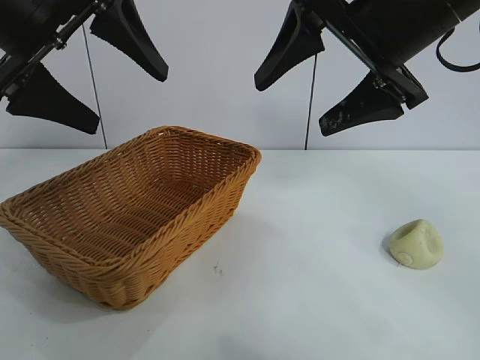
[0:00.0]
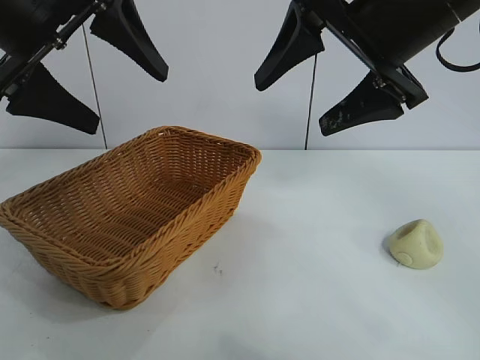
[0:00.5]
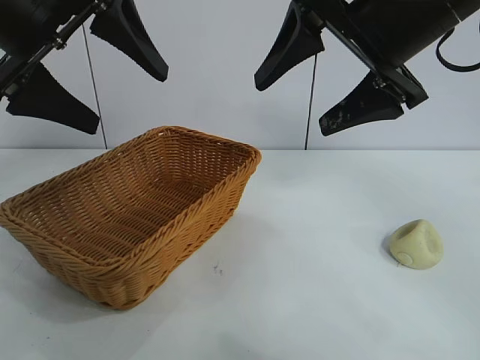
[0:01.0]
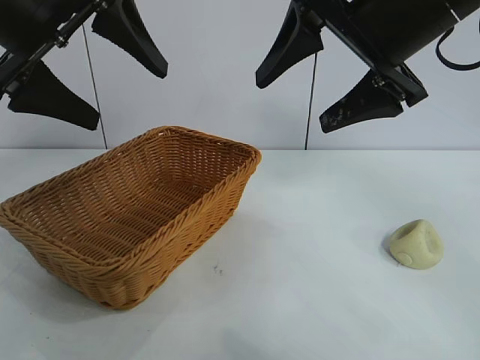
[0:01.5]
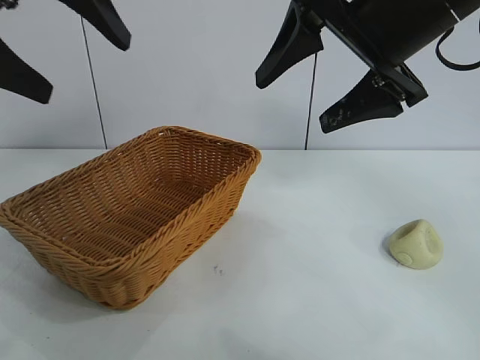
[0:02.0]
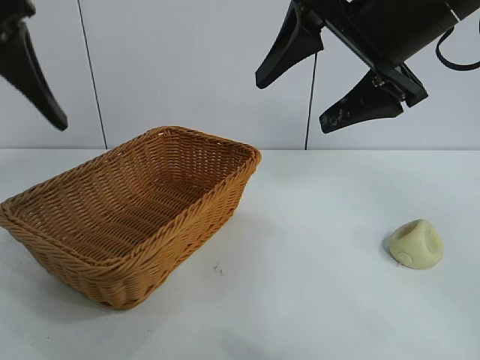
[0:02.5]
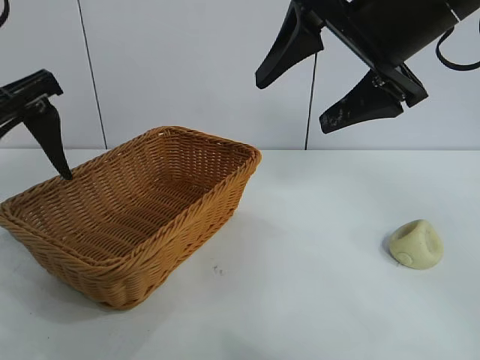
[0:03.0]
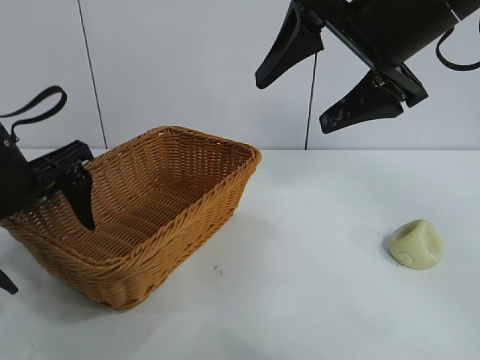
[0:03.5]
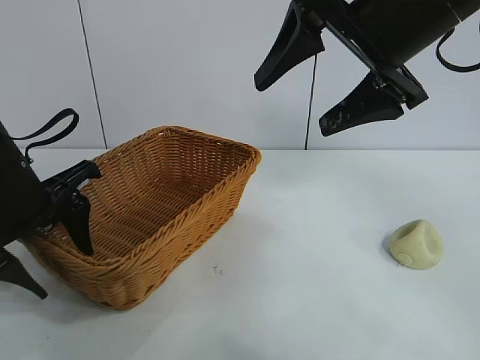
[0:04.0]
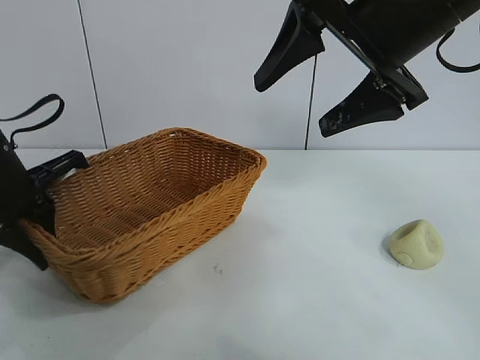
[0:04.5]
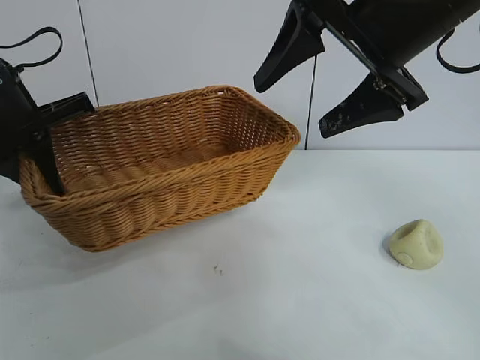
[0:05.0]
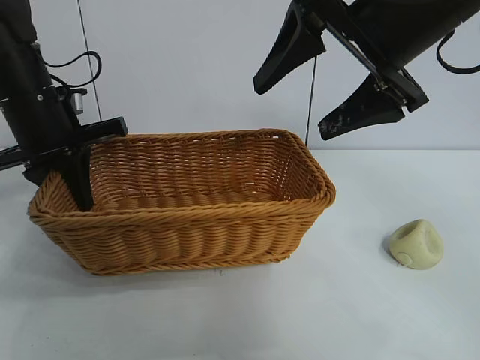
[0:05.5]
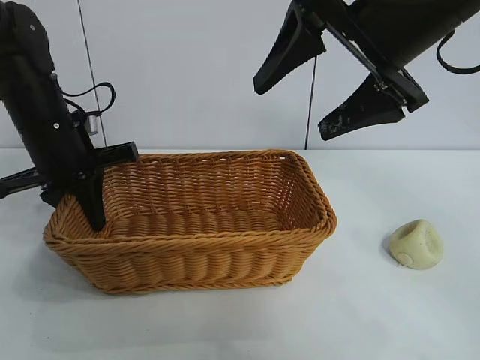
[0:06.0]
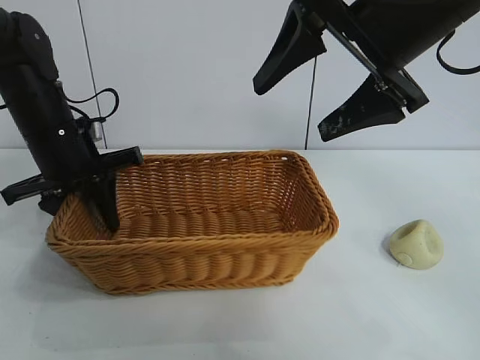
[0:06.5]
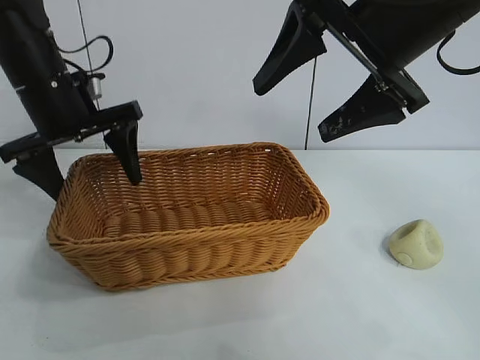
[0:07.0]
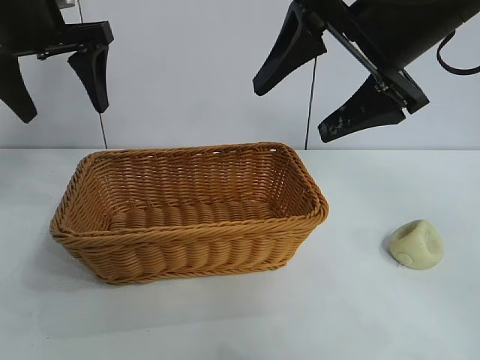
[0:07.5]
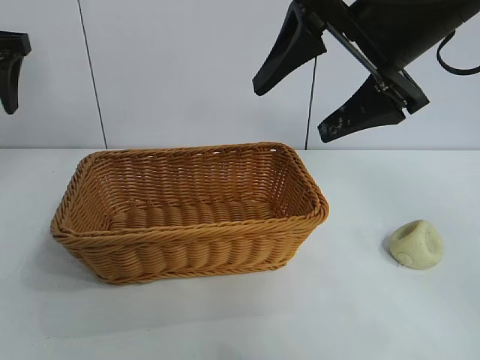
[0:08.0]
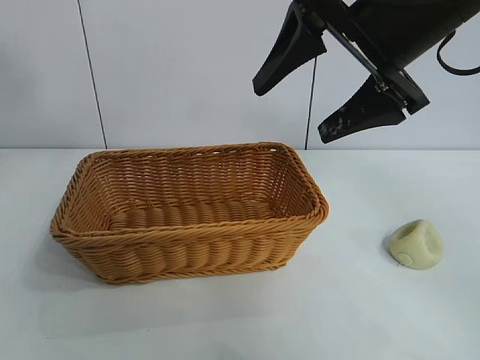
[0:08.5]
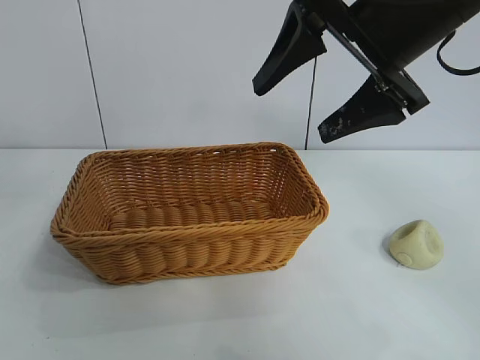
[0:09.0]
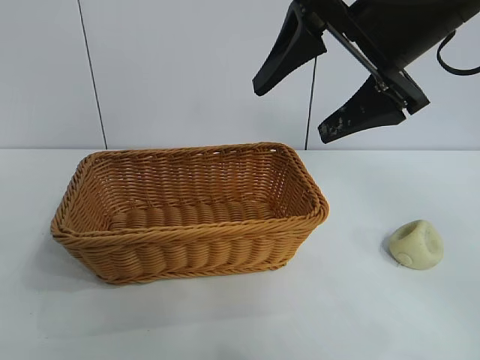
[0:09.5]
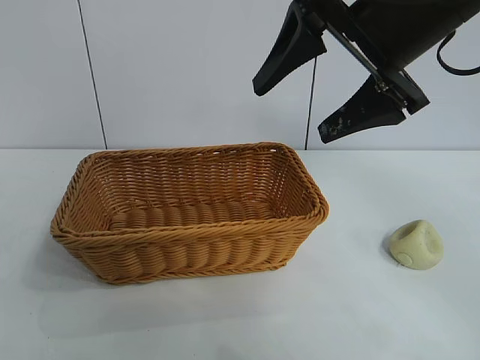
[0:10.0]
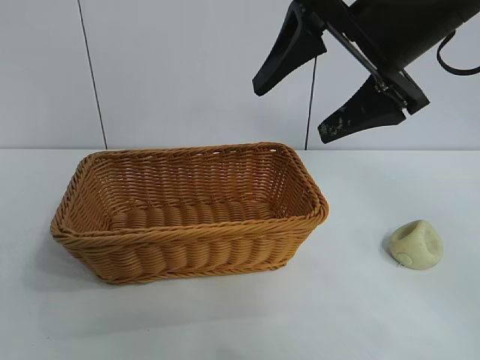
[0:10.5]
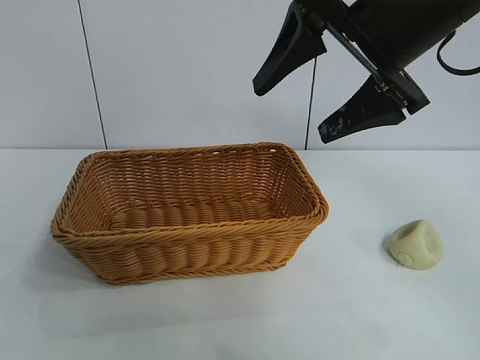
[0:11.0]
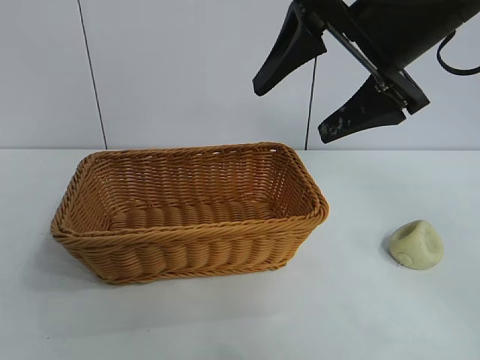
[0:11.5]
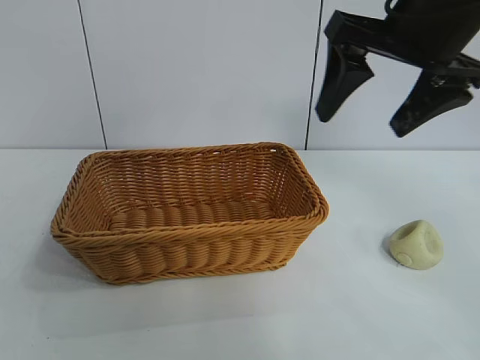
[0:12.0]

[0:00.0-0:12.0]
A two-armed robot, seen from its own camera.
Task of the whole recording: pick up the egg yolk pastry and put it into the basket.
Step, 0:01.5 to 0:04.0: Grasp the basket with left gripper.
Step, 0:04.5 to 0:06.5: Place the basket in the center of view with left gripper.

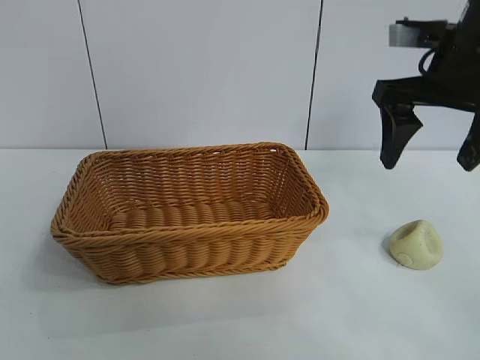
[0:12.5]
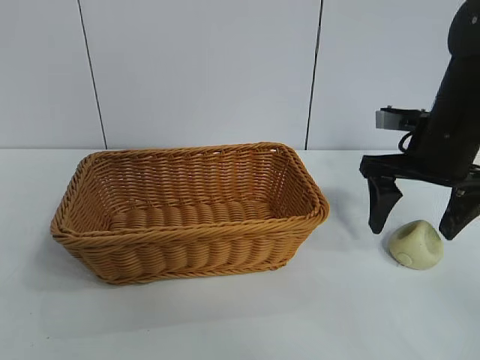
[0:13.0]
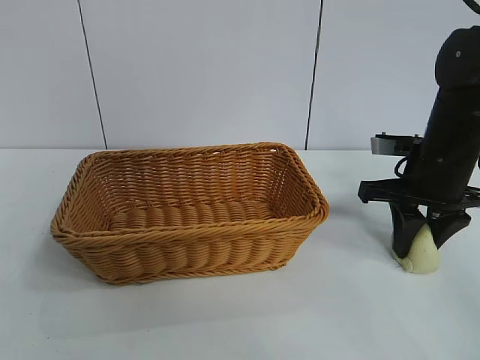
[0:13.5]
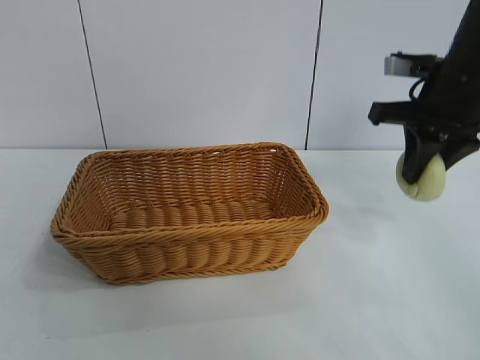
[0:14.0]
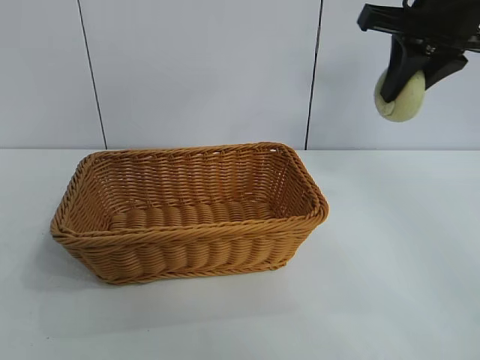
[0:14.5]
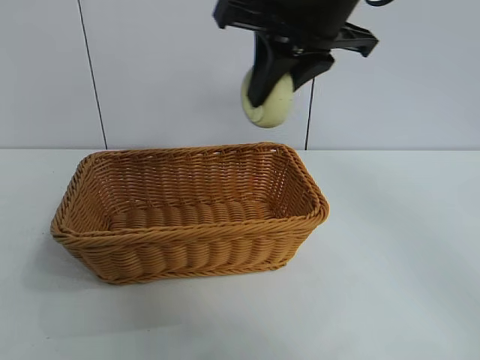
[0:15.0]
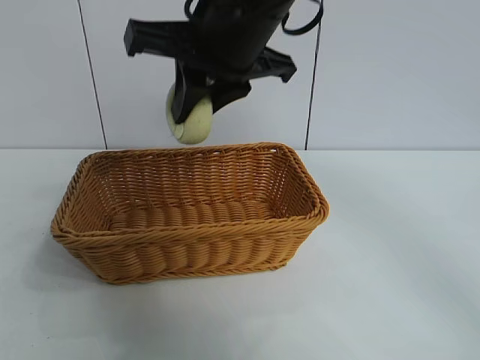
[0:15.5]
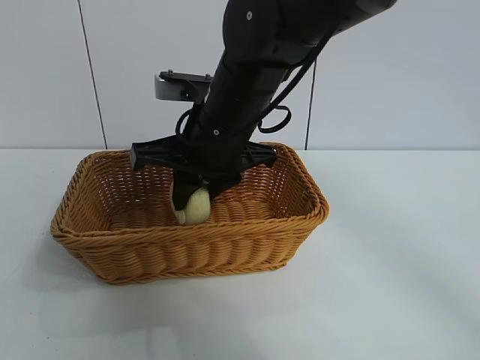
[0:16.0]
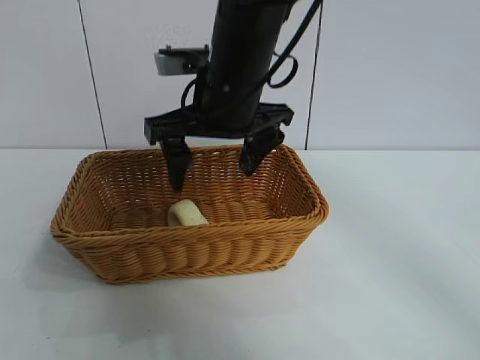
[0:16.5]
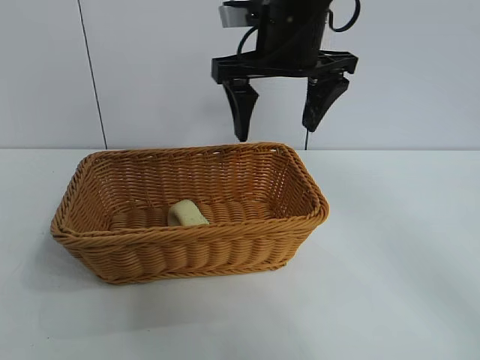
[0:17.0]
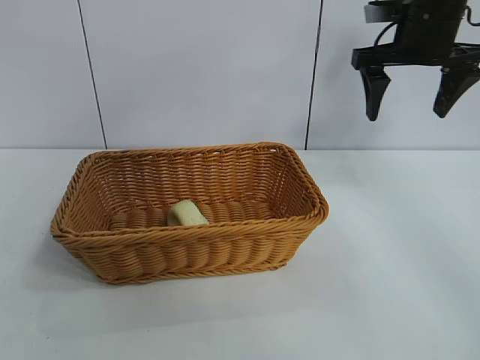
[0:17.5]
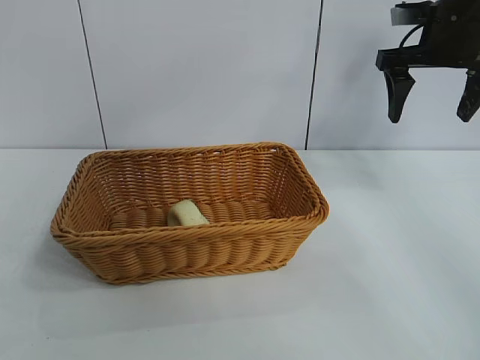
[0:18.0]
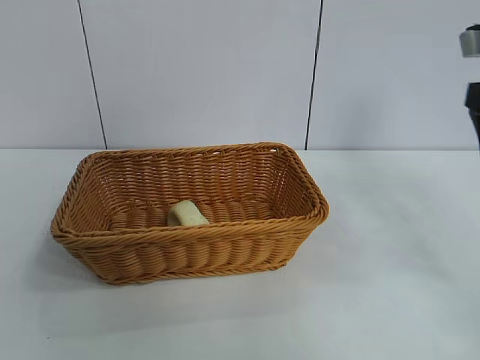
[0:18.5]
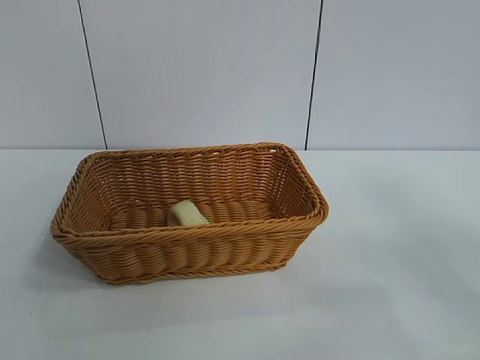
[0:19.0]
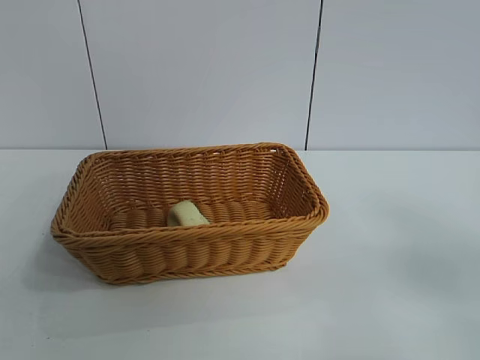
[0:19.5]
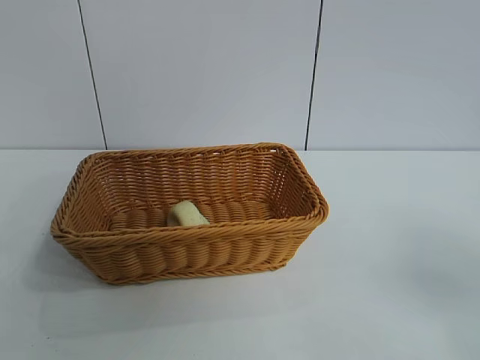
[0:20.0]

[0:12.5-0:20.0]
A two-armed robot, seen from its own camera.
Task of the whole recording: pick up the egg yolk pastry and put it into the basket.
Step, 0:14.0 to 0:16.0: Place the egg yolk pastry in the basket with right gripper.
